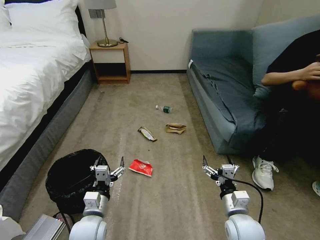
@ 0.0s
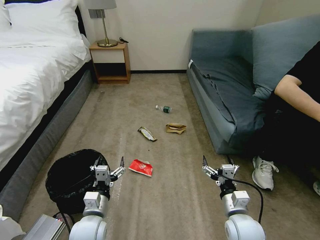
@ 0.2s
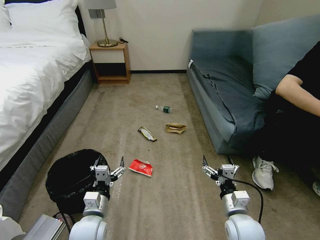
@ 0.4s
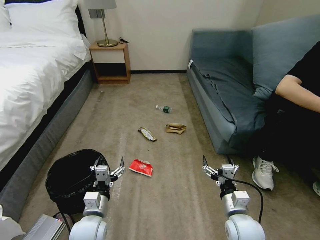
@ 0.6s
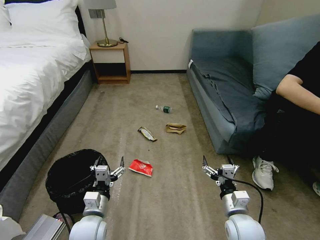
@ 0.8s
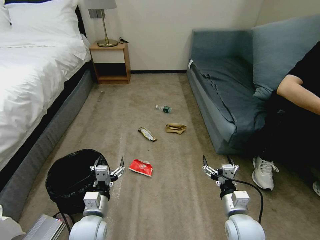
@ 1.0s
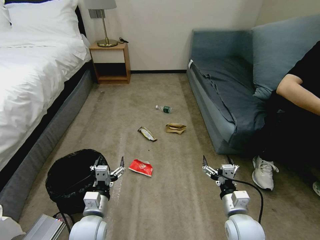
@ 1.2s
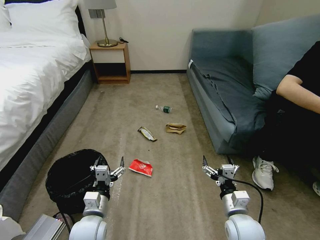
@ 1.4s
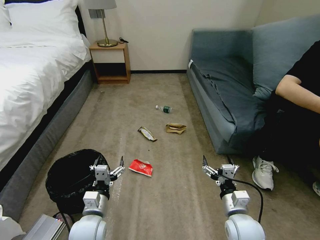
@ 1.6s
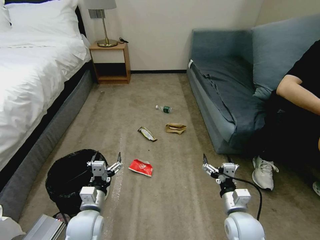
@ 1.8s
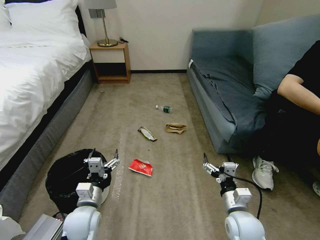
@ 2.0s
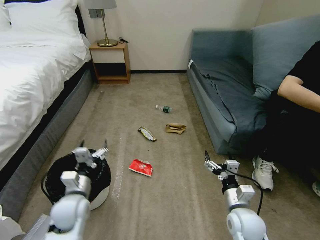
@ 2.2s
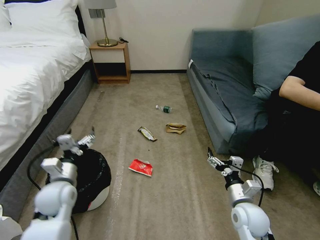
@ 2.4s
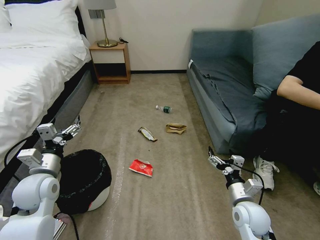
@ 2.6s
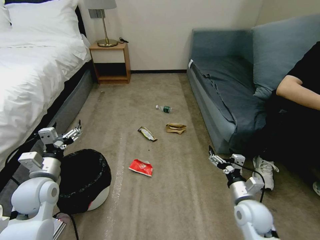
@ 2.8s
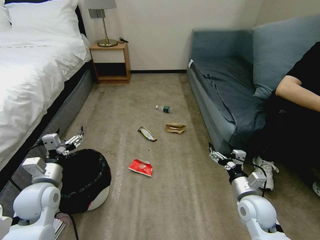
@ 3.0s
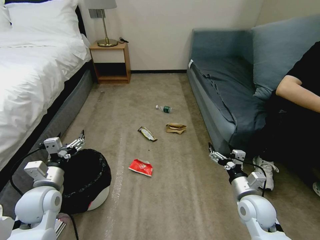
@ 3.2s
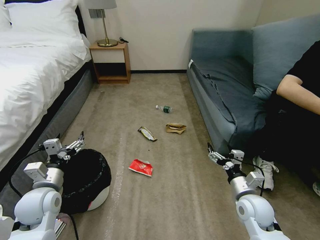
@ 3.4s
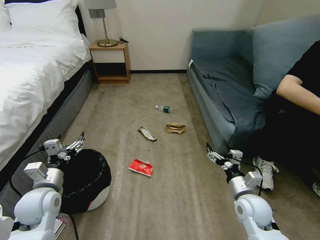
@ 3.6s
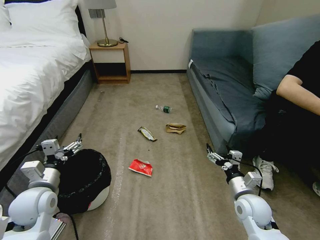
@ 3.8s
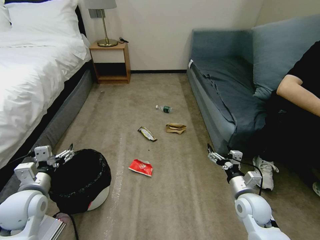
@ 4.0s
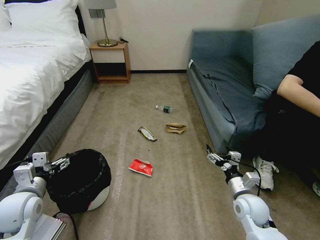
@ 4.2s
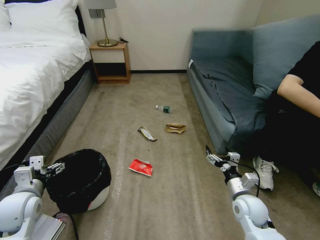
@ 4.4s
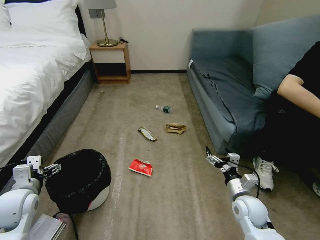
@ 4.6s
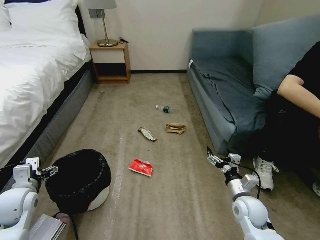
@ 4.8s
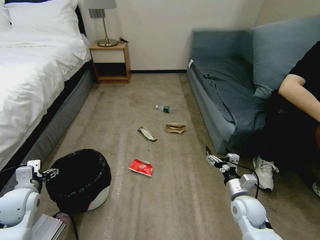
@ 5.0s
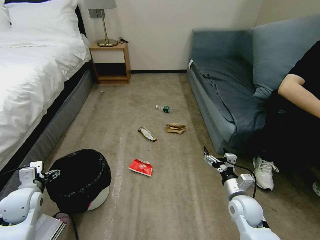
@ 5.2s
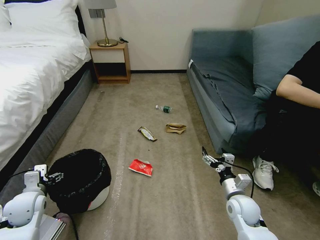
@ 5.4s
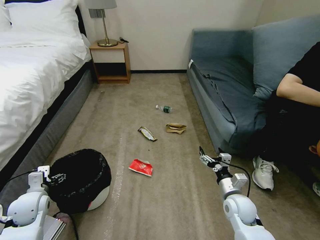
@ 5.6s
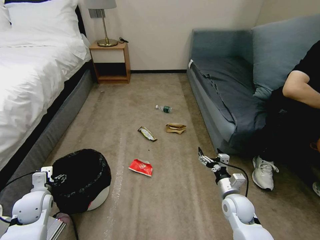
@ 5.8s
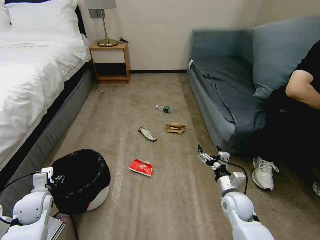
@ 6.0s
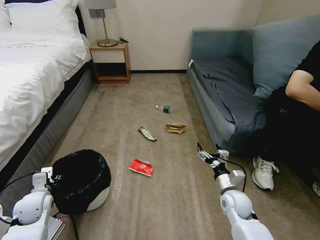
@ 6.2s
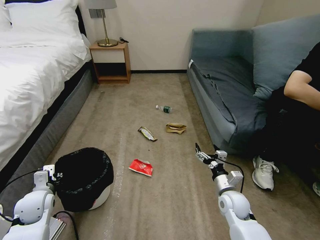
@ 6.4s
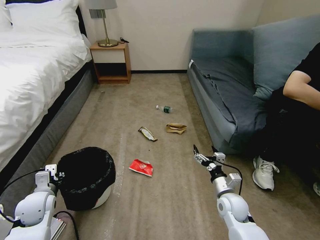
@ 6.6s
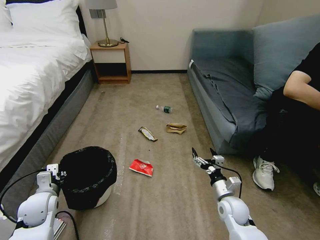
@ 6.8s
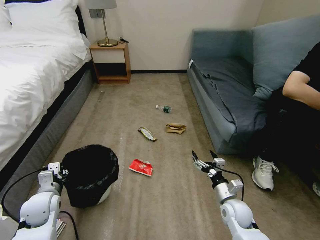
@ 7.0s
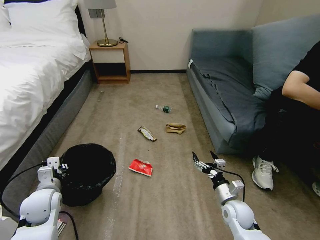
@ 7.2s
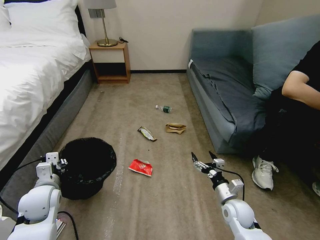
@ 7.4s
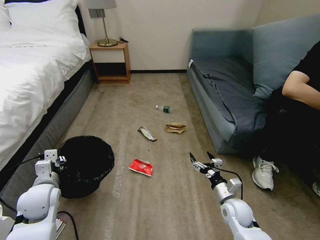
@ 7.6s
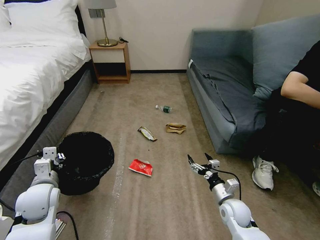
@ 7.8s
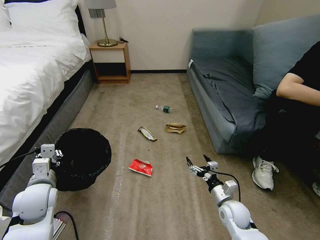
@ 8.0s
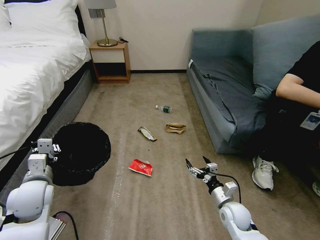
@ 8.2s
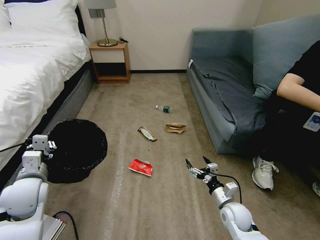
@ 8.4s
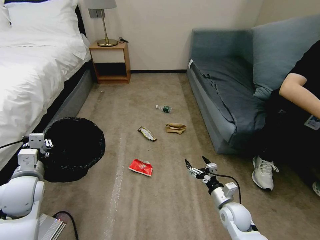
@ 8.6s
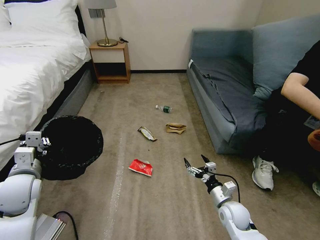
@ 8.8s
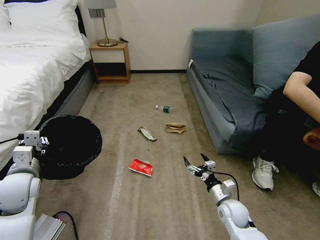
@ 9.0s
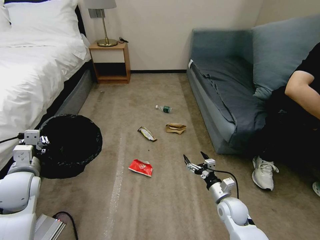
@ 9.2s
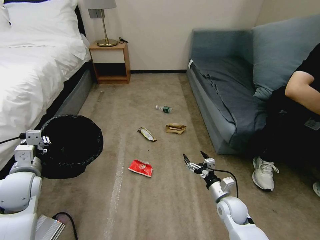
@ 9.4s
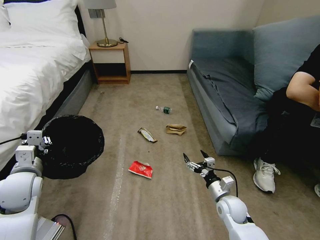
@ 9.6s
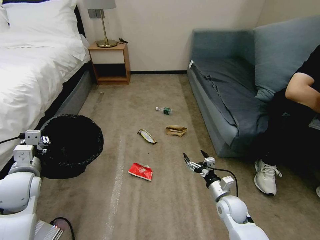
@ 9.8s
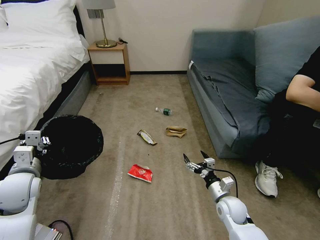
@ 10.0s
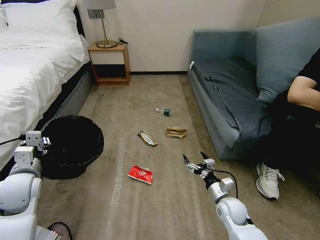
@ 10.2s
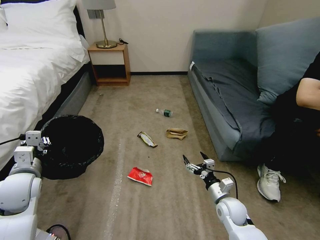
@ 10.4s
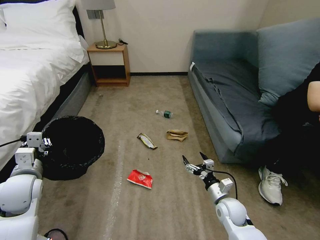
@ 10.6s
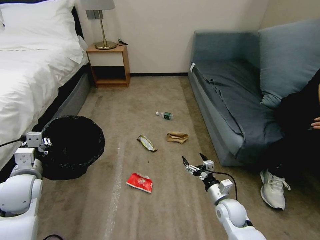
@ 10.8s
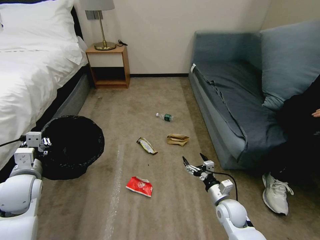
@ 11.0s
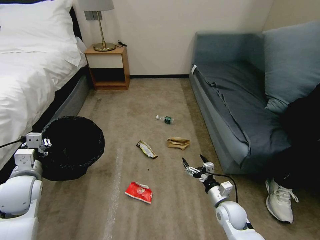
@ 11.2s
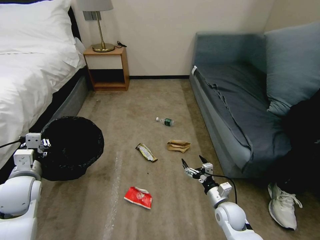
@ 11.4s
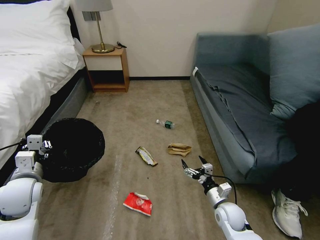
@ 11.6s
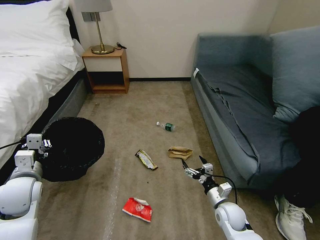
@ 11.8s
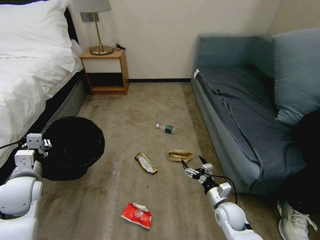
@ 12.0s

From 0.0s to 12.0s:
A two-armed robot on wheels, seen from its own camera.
Task of the whole recording: Pick up the trash bin, then pick up the garbage on the floor and place it into the trash bin.
From 1.6s to 3.0s: The left gripper shifts about 20 cm to the left, upward and forward. Meanwhile the right gripper heads to the right and forward, covering roughly 5 cm.
From 4.4s to 6.0s: The left gripper is displaced downward by roughly 10 cm, and closes its fingers.
From 6.0s to 7.6s: The left gripper shifts approximately 10 cm upward and to the right, and closes its fingers.
From 7.6s to 9.0s: The left gripper travels upward by approximately 5 cm.
From 9.0s to 10.4s: There are only small adjustments of the grippers.

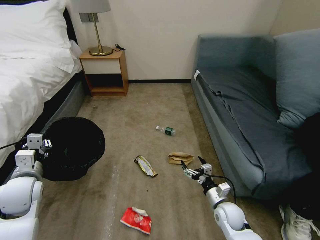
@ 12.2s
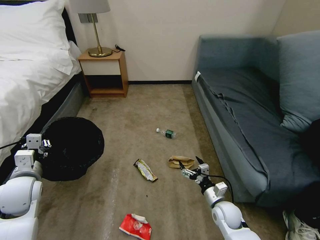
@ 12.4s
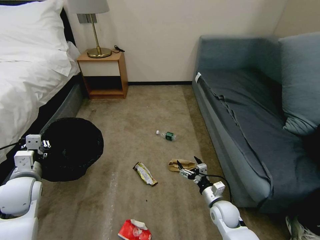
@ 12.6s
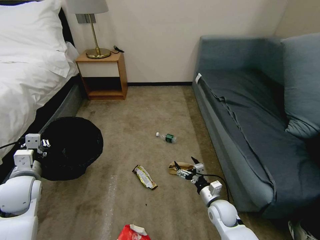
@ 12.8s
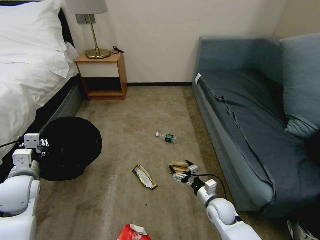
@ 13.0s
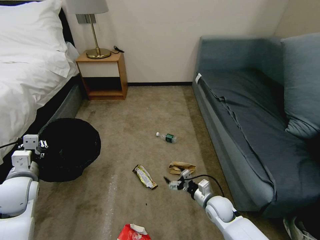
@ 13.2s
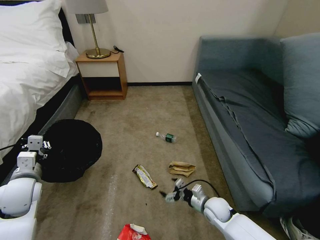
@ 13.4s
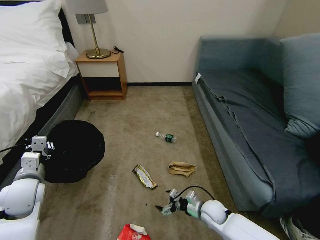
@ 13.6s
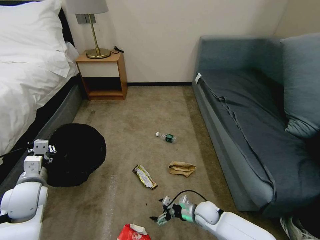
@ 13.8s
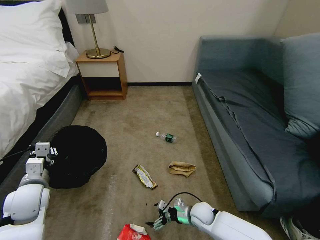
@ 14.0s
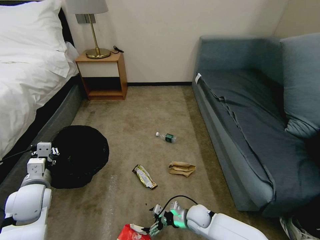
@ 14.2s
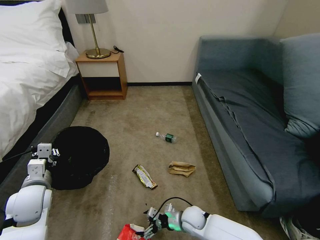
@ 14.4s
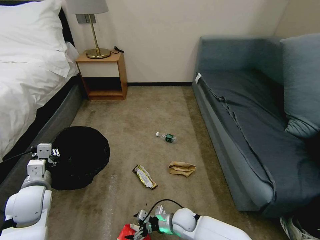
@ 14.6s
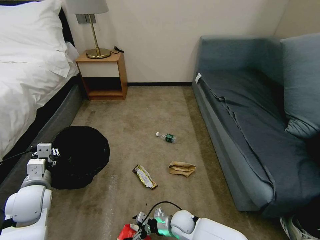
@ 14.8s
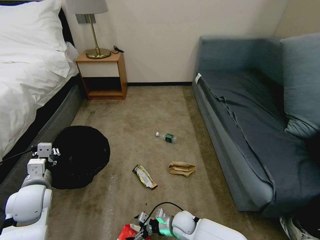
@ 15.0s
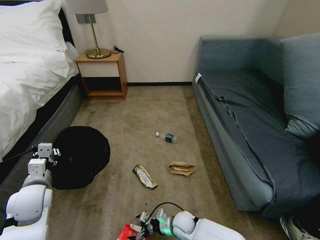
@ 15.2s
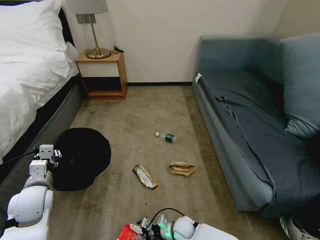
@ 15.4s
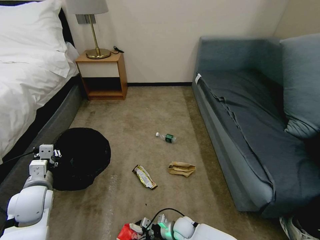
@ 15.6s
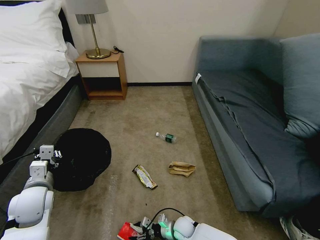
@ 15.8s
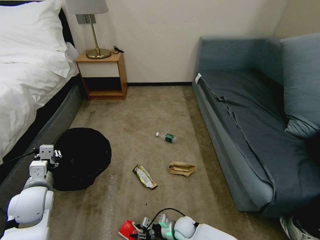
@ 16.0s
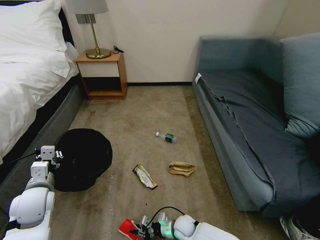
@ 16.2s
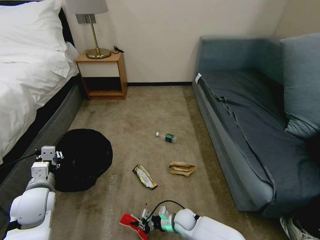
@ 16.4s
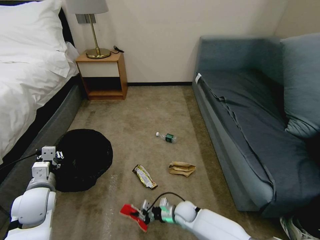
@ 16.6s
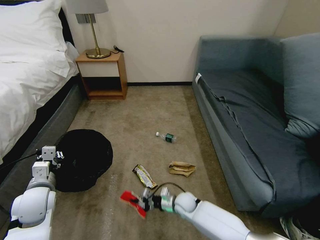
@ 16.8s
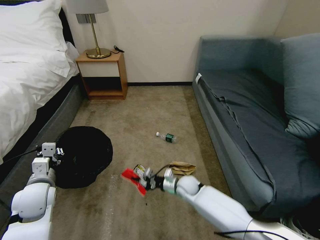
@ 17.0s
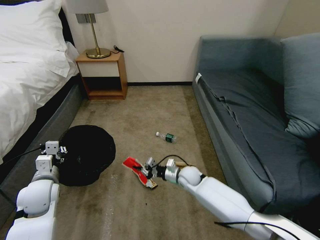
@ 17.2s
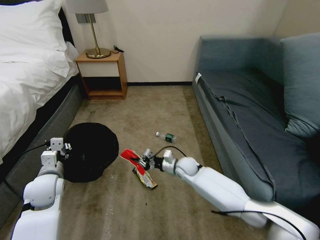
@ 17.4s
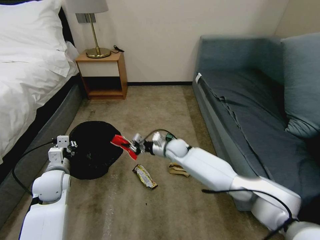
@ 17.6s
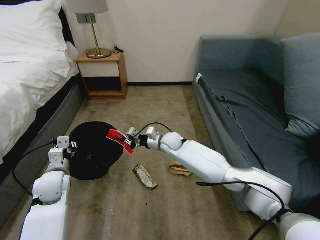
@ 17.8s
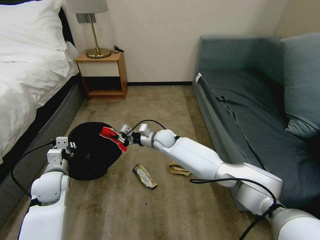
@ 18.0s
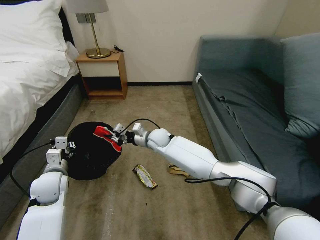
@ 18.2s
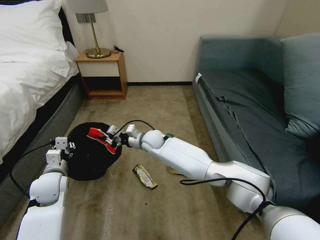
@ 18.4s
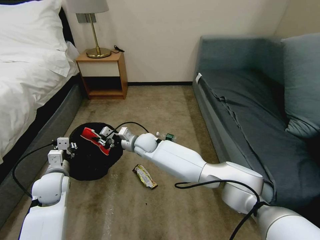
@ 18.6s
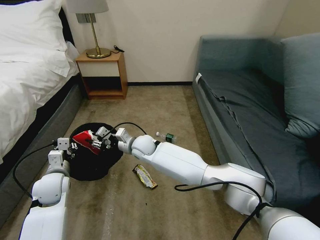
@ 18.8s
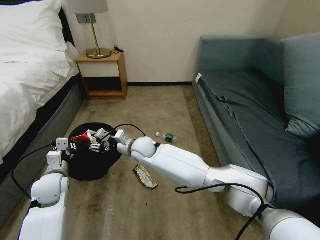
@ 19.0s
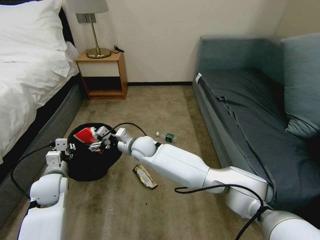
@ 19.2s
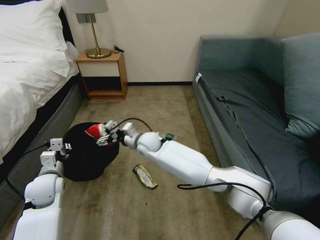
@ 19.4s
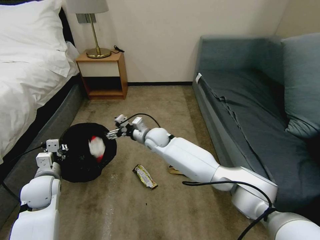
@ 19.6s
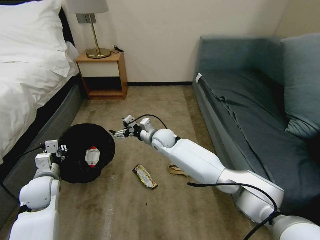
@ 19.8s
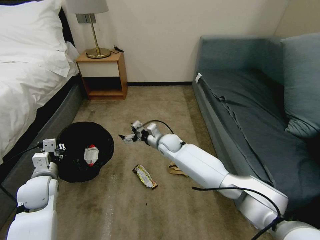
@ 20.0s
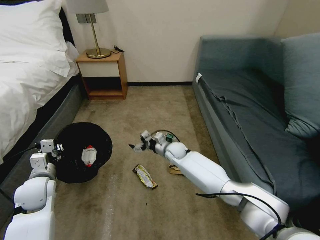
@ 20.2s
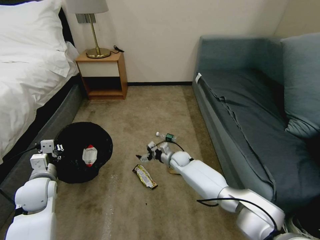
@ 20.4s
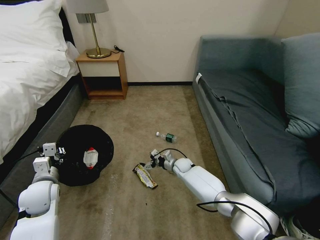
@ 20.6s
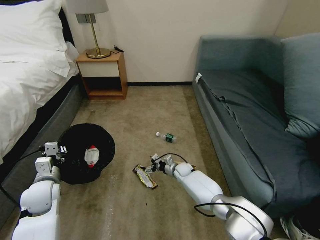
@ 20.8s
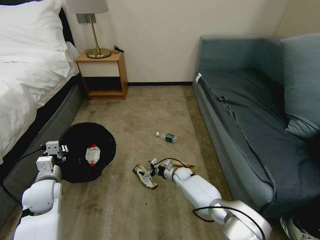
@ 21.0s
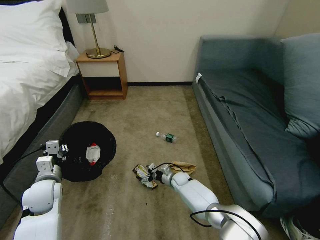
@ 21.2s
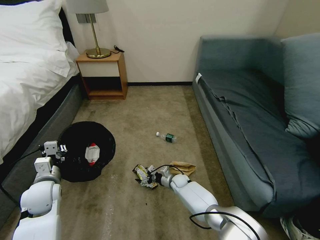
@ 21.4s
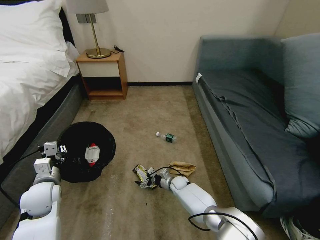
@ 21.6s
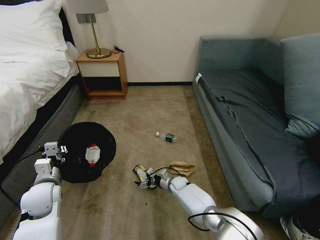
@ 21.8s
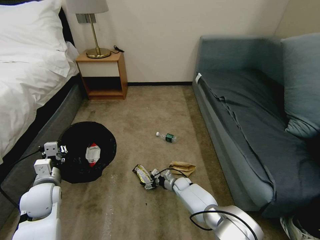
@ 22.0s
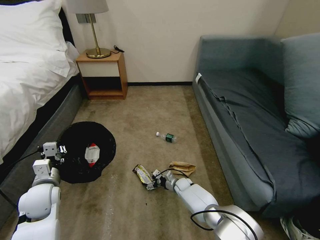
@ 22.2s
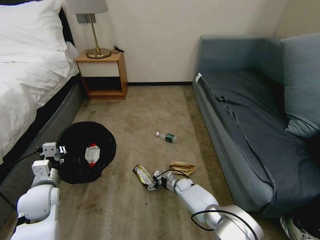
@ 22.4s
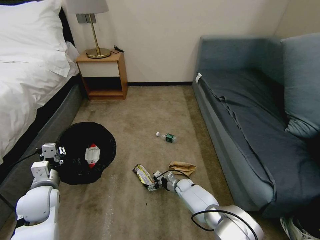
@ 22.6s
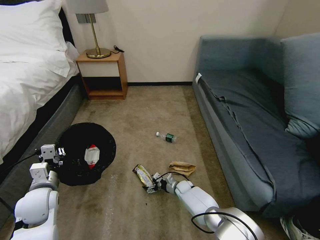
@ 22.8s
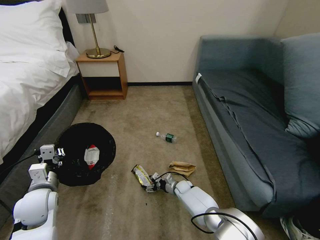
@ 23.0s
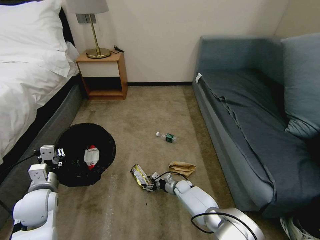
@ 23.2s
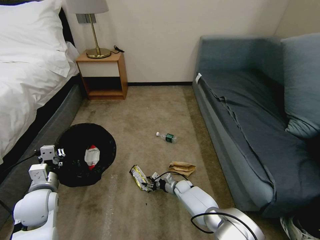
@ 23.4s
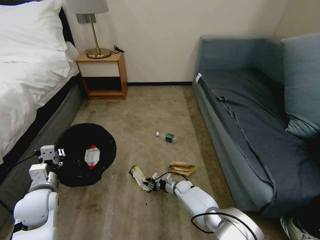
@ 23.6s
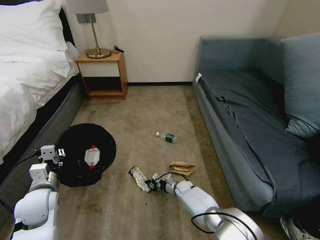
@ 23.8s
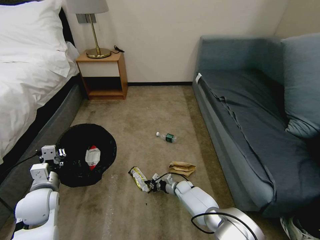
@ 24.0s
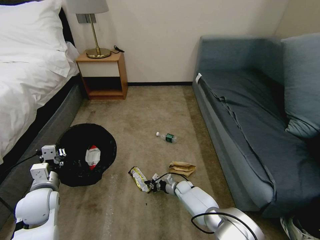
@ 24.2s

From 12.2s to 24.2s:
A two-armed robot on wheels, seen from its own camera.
Task of the whole recording: Pick up the trash bin, then pick up the garbage on the floor and place it into the trash bin.
From 12.2s to 13.8s: The right gripper moves to the left and downward, some 10 cm.
From 13.8s to 15.2s: The right gripper heads to the left, covering roughly 10 cm.
From 15.2s to 16.6s: The right gripper closes.
From 16.6s to 18.2s: The right gripper heads upward, forward and to the left, covering roughly 35 cm; the left gripper is displaced forward by roughly 5 cm.
From 18.2s to 19.8s: The right gripper reaches about 5 cm to the left, then returns, and opens.
From 19.8s to 21.2s: The right gripper goes roughly 25 cm downward.
From 21.2s to 22.6s: There are only small adjustments of the grippers.
From 22.6s to 24.2s: The right gripper closes up.
